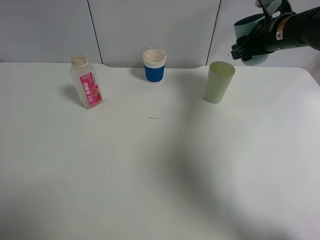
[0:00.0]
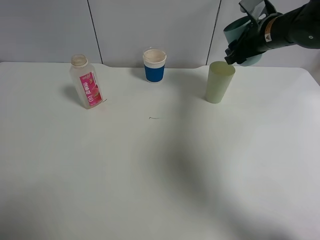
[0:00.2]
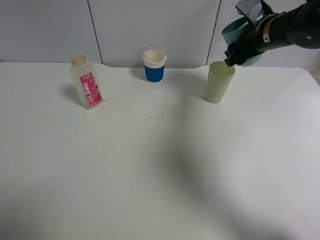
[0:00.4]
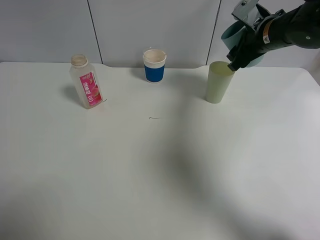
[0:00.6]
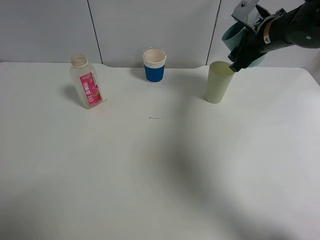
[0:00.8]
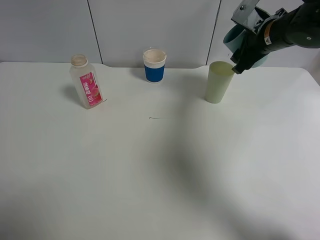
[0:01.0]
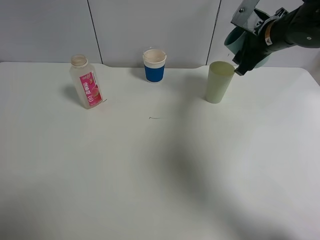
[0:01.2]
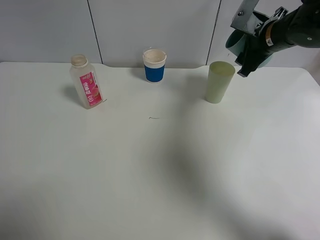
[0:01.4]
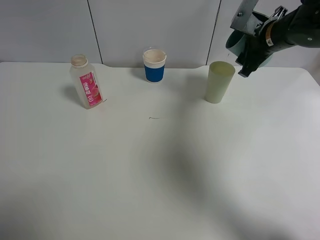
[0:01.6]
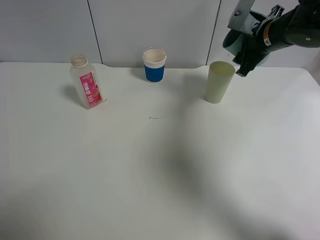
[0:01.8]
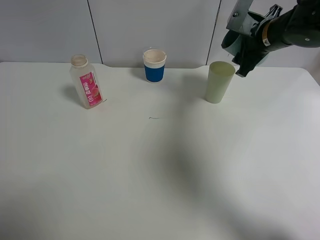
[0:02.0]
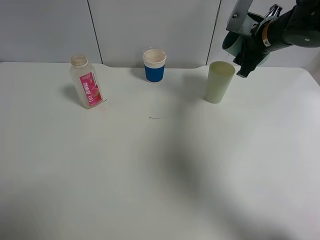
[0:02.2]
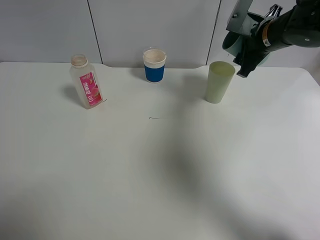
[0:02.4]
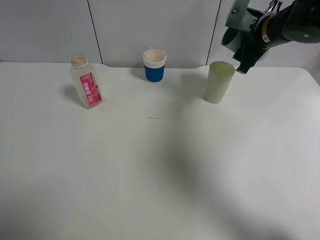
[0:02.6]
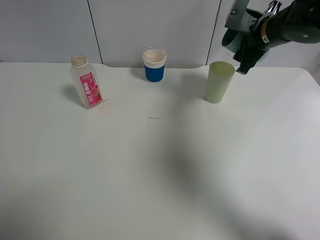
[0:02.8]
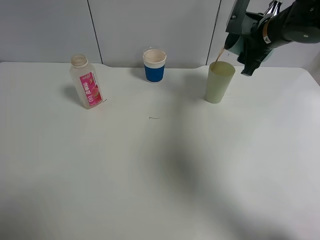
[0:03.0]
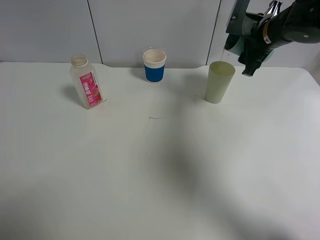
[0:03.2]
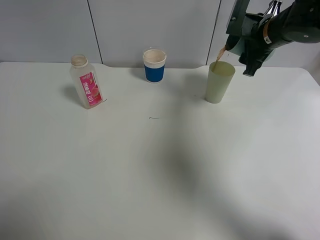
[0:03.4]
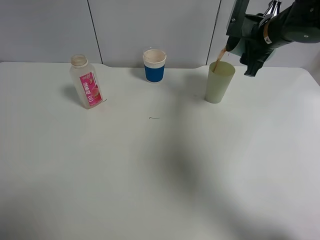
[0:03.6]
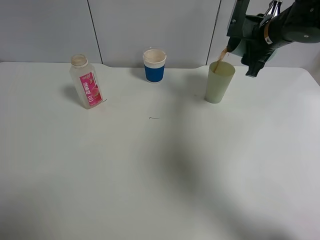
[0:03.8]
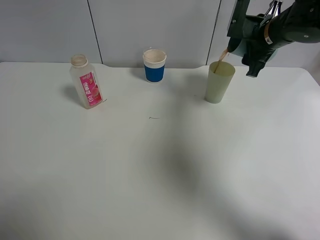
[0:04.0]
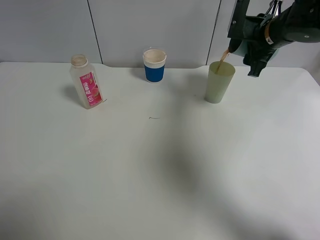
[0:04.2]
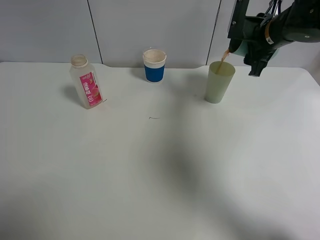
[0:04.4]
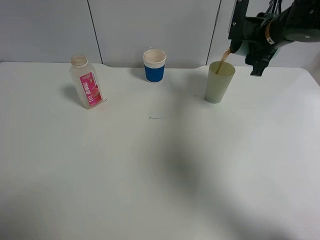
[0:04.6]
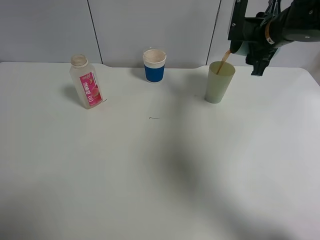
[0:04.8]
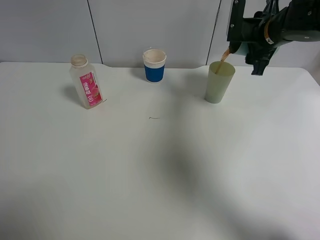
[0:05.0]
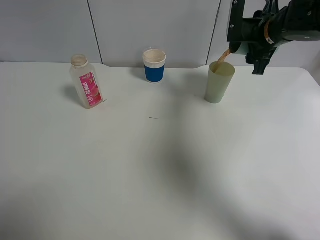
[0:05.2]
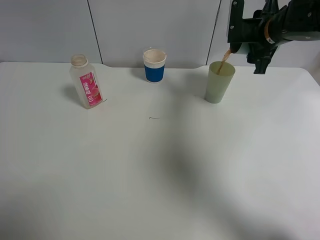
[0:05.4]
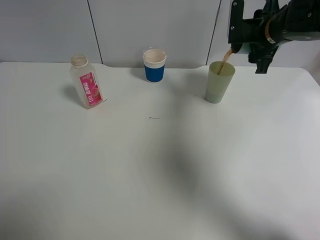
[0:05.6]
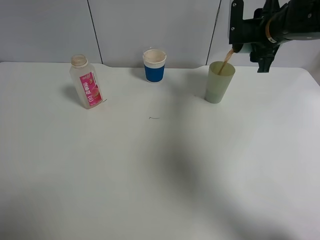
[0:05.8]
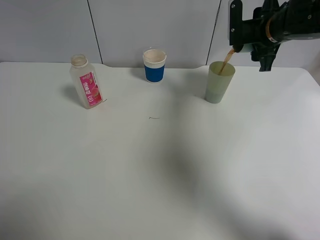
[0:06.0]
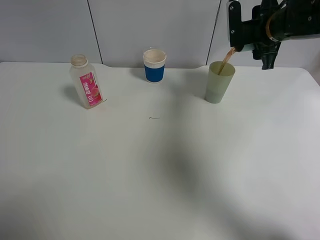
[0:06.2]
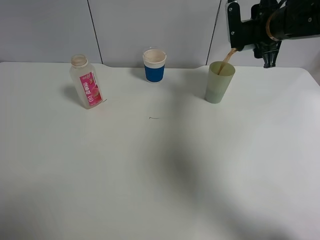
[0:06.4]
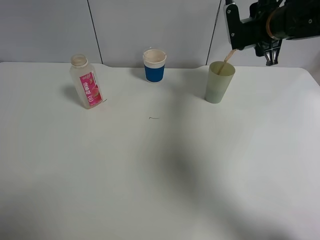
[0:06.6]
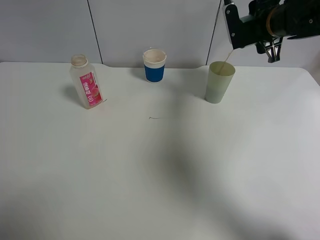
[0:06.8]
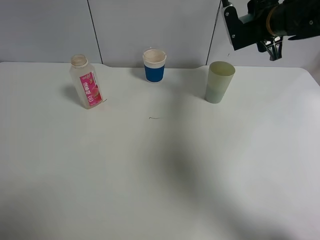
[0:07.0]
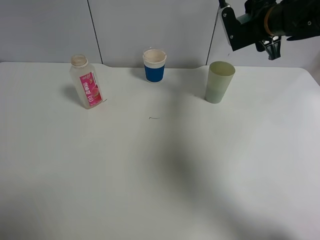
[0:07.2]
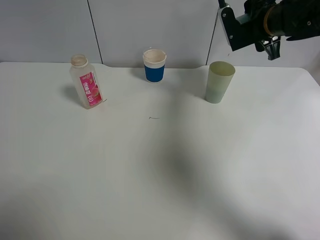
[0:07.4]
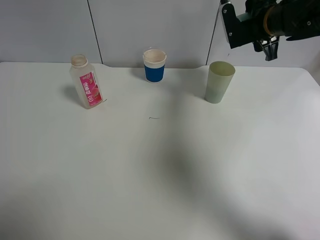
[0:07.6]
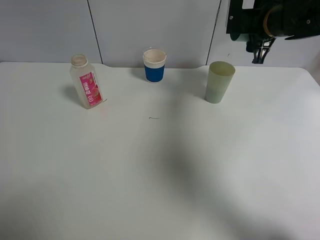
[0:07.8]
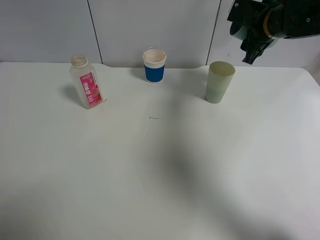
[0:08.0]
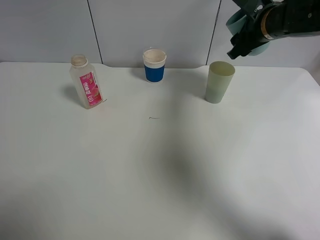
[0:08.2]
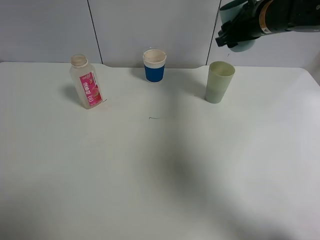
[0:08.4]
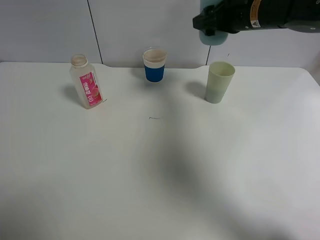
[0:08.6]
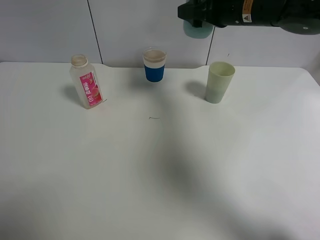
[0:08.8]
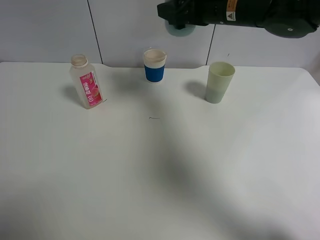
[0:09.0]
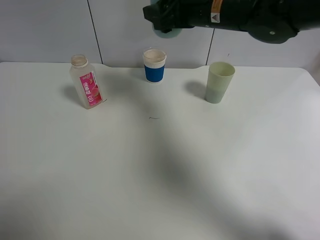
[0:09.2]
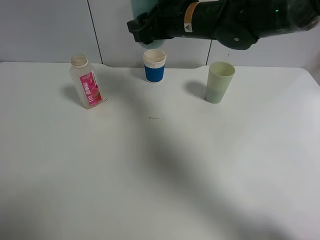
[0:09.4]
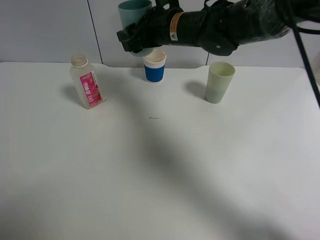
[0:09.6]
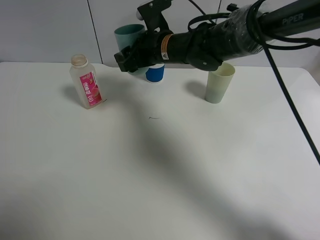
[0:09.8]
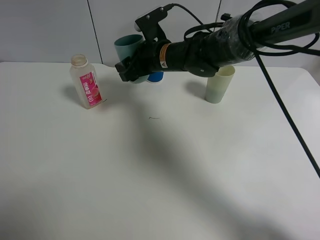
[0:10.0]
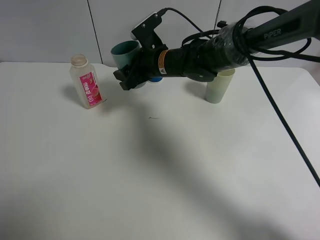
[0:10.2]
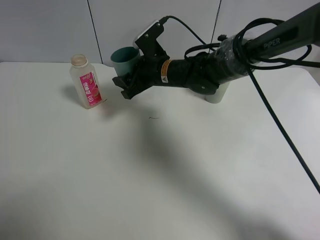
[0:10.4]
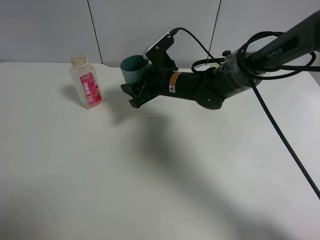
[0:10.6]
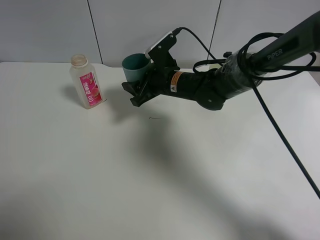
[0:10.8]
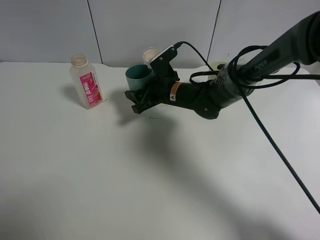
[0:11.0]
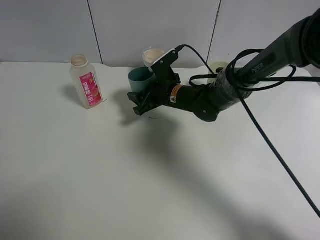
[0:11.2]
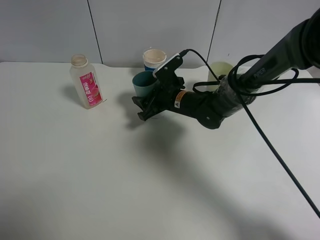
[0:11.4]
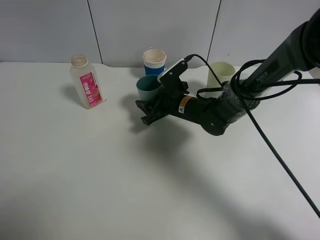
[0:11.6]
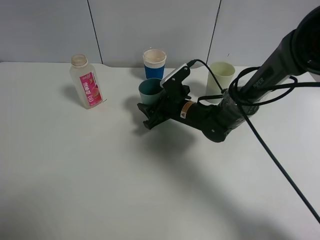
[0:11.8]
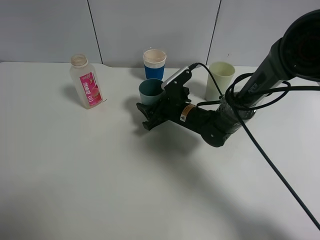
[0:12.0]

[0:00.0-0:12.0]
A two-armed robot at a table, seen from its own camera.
Task of the whole recording: use a clamp to hold the bottle of the drink, pour the beverage into a random cup, then clamp the cup containing the drink and pour the drink into another random cup.
Step, 0:00.0 to 0:08.0: Pour the drink into the green plastic cup with right gripper.
0:01.6 to 0:04.4: The grippers move only a little.
0:04.4 to 0:06.0: The grippers stay close to where they were, moving slightly.
0:07.6 to 0:09.0: The right gripper is displaced to the left by approximately 10 cm.
0:09.0 to 0:10.4: The right gripper heads downward and to the left, covering about 15 cm.
0:10.4 to 0:12.0: The right gripper shifts approximately 10 cm downward and to the right.

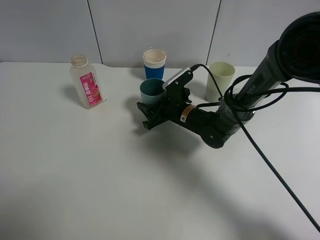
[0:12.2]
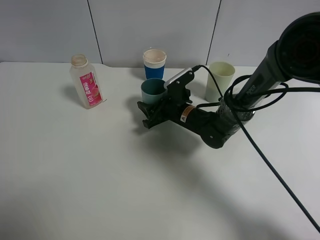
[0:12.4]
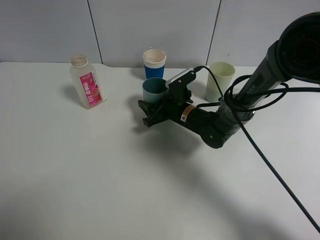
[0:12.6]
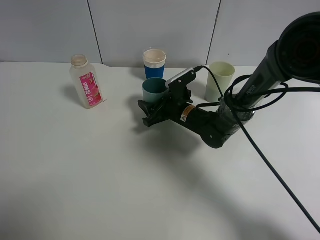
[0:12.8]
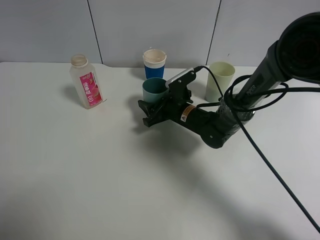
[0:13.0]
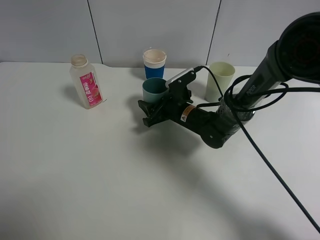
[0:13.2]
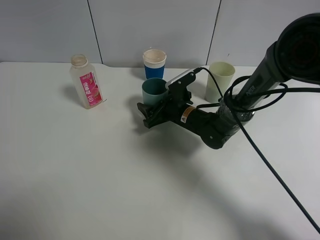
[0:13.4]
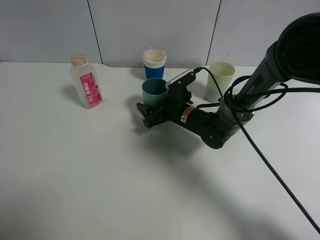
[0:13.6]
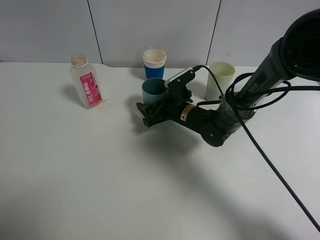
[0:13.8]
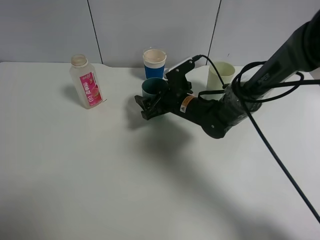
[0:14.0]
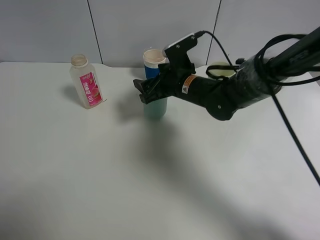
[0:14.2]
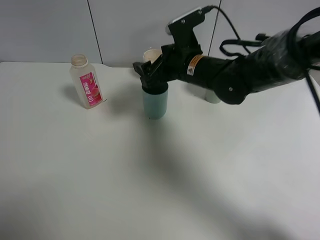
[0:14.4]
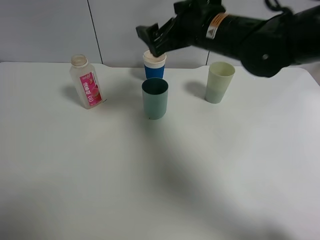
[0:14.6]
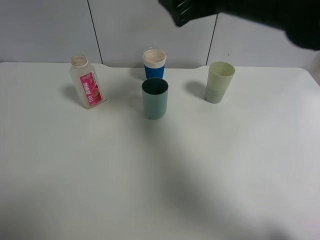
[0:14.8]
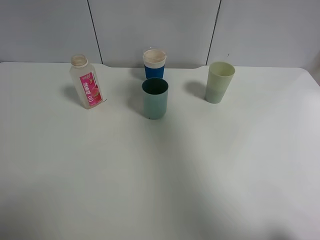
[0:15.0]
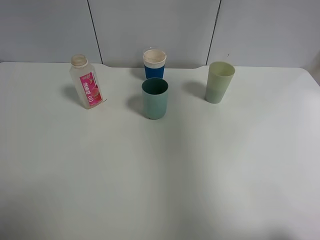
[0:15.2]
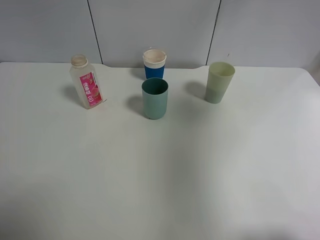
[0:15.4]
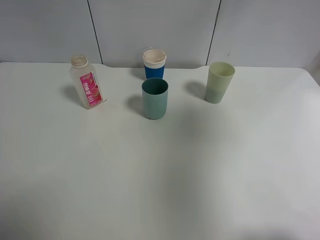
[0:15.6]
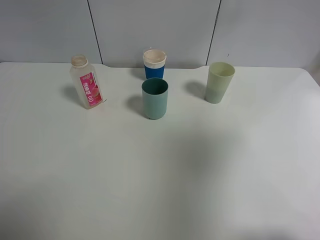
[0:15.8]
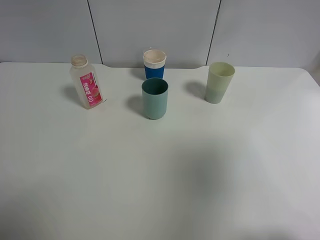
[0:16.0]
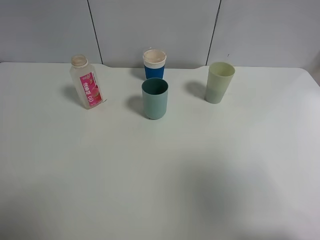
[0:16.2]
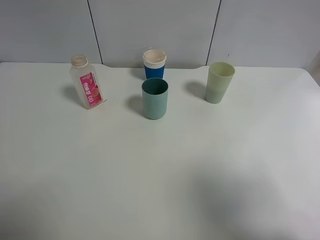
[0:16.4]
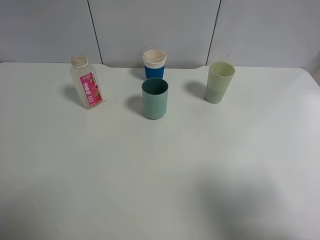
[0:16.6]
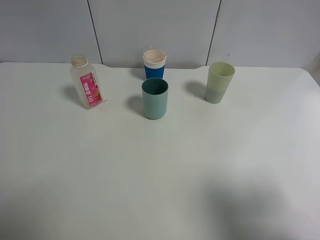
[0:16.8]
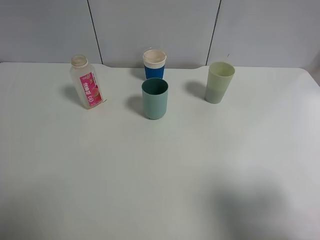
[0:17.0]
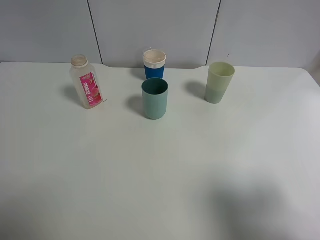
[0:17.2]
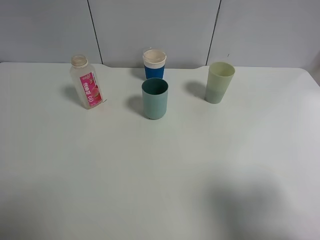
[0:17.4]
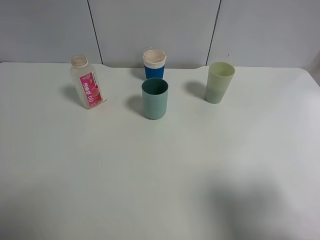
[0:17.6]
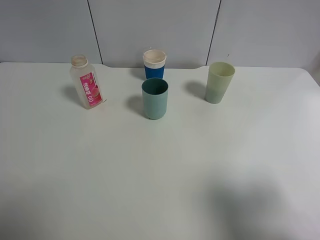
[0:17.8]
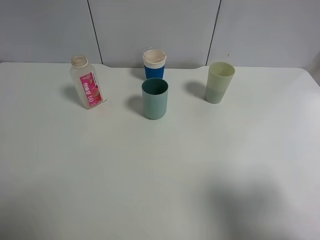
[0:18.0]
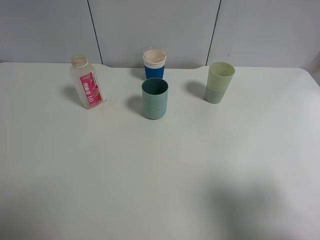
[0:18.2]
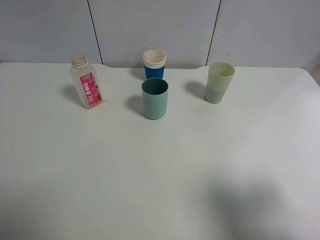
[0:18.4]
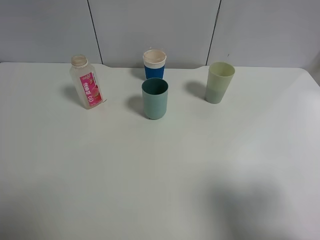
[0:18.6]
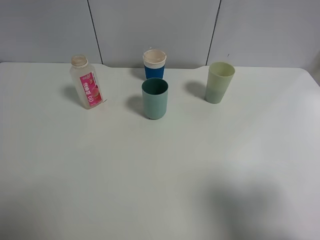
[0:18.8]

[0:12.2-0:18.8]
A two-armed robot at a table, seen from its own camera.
Task of the whole recording: use a clamp to hold the bottle of the drink, pour the beverage into a random cup, then clamp the cup containing the drink and pour the drink into another random cup.
0:12.2 to 0:13.8: The right gripper opens its fingers.
0:13.8 to 0:15.4: The right gripper shifts roughly 50 cm upward, to the right and backward, and opens its fingers.
0:15.4 to 0:17.2: The right gripper shifts about 20 cm backward and downward.
0:17.2 to 0:18.8: Both grippers stay about where they are.

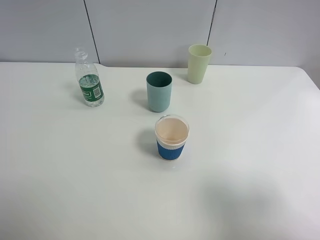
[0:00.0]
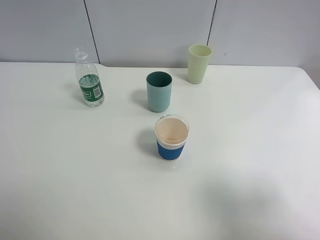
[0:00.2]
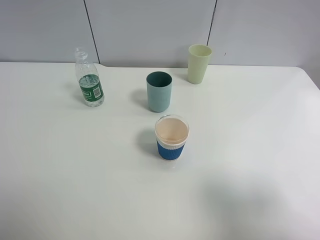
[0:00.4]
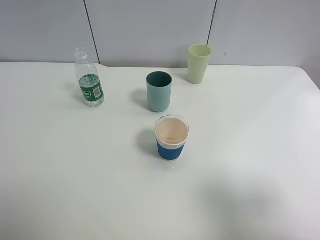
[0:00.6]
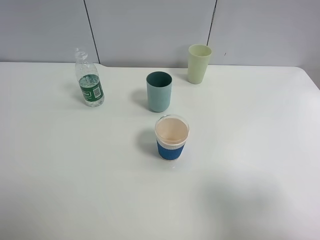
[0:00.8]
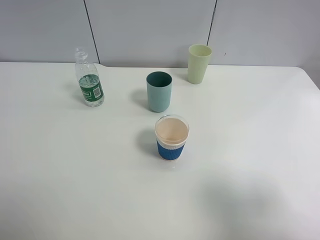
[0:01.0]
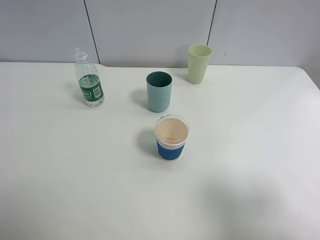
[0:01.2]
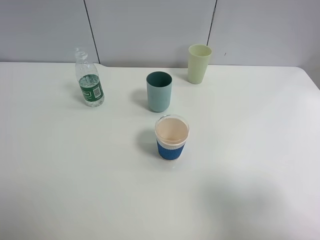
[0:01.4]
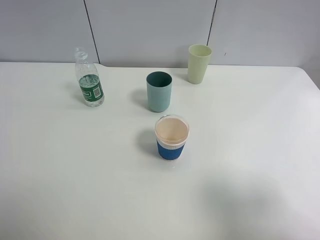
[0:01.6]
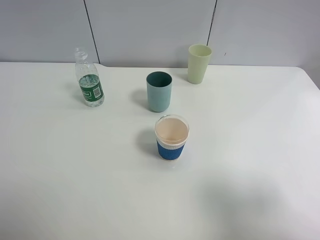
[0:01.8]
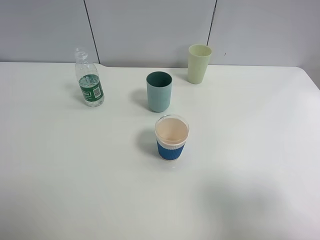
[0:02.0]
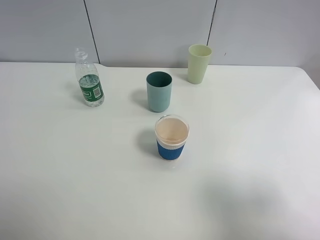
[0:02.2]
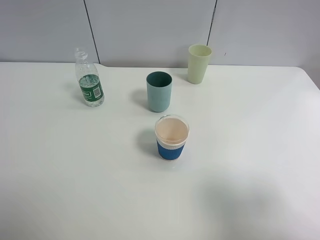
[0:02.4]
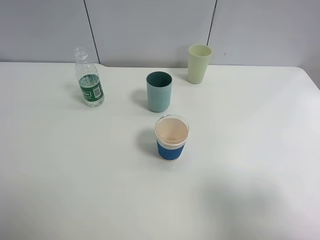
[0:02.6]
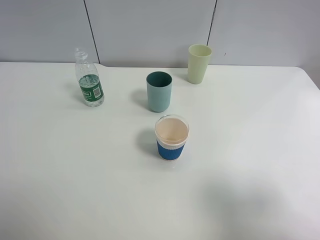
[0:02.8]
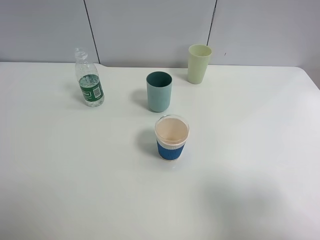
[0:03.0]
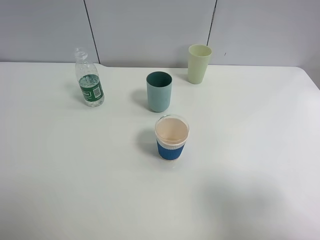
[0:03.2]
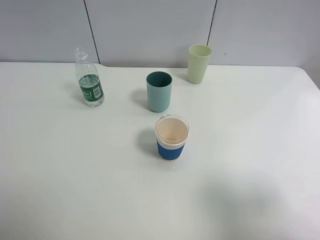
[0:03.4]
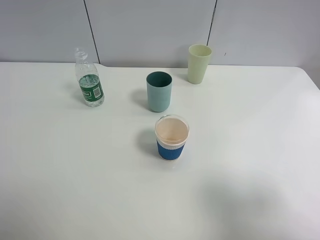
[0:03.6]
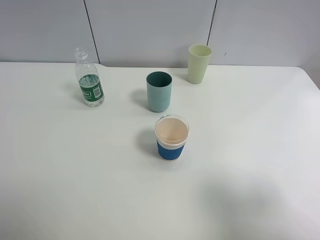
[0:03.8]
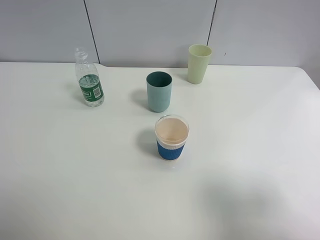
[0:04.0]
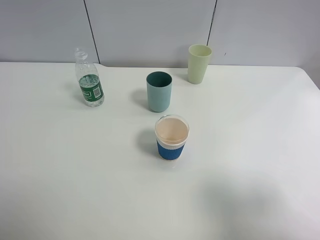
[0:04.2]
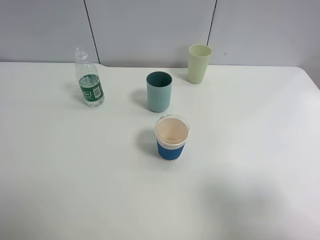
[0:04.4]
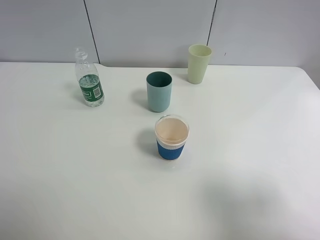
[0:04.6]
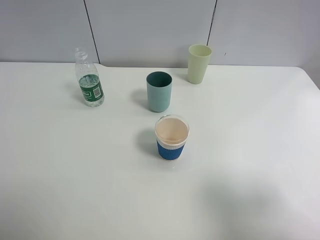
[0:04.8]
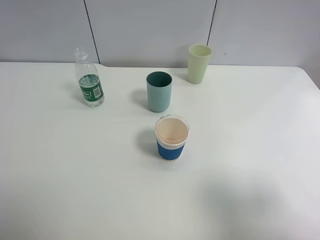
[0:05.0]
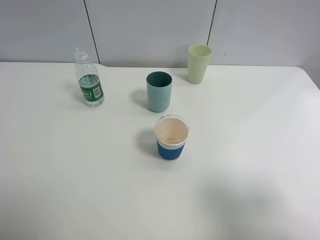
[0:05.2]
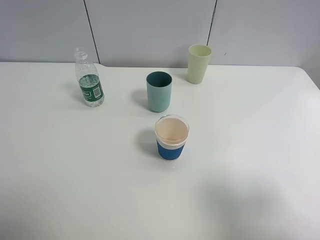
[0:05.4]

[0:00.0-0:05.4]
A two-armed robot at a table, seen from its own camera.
Task of the whole recording: use a clamp to hold the bottle of the drink, pour the beverage into a random cup, then clamp the cup containing the drink and pour the drink into another random cup.
0:00.0 to 0:04.0: The two grippers keep their place.
